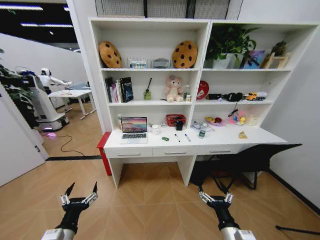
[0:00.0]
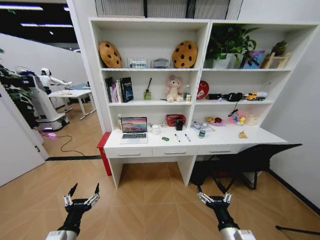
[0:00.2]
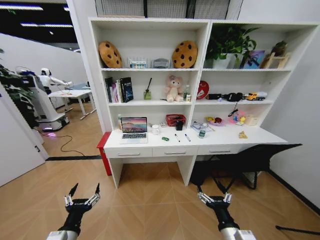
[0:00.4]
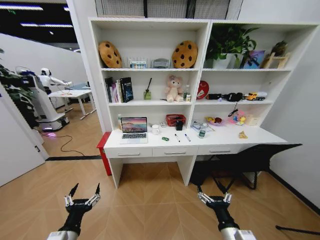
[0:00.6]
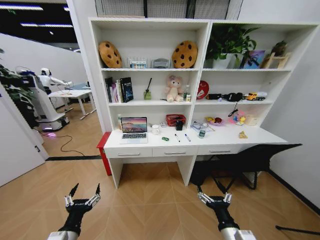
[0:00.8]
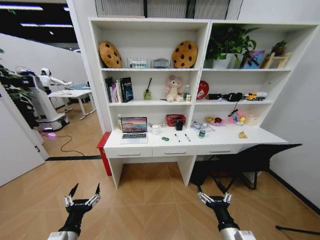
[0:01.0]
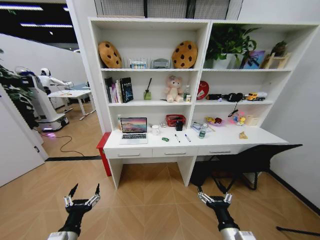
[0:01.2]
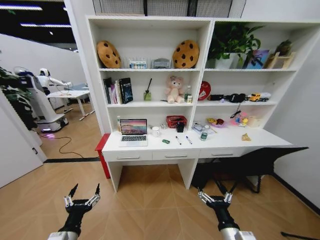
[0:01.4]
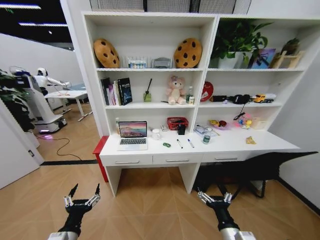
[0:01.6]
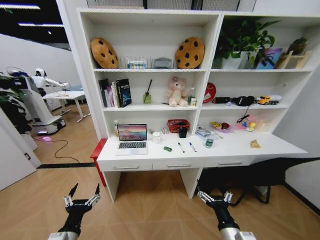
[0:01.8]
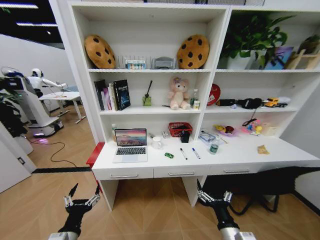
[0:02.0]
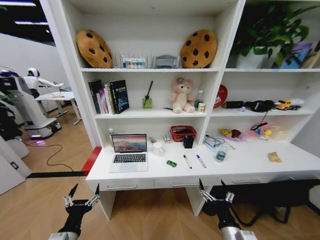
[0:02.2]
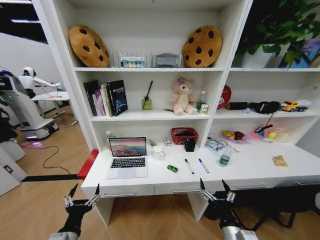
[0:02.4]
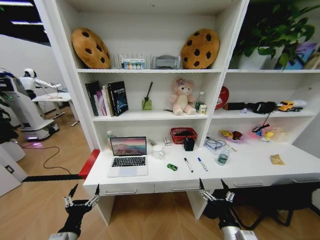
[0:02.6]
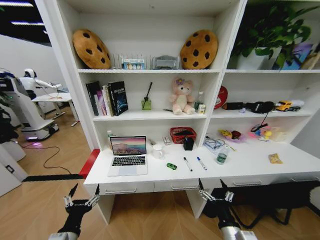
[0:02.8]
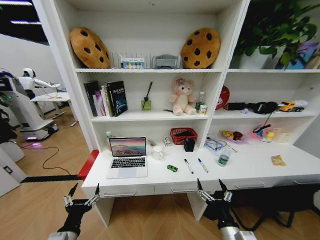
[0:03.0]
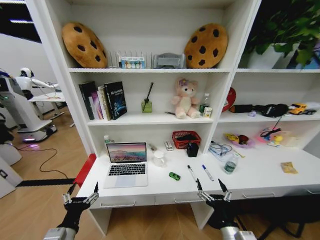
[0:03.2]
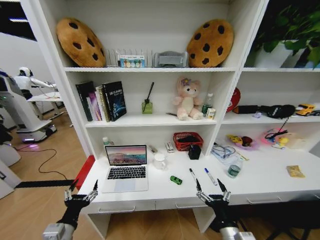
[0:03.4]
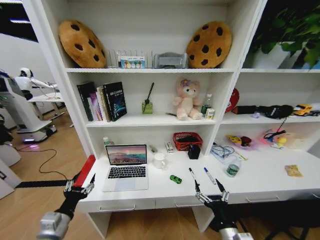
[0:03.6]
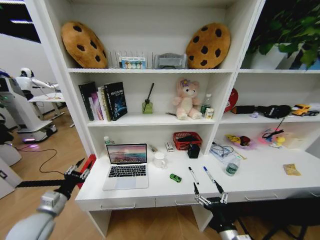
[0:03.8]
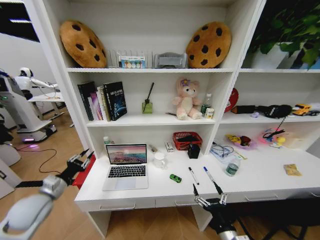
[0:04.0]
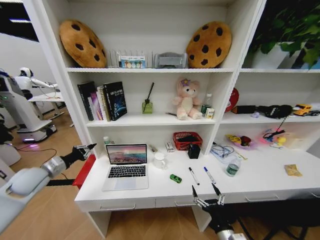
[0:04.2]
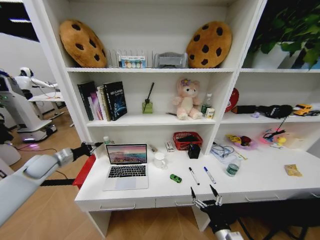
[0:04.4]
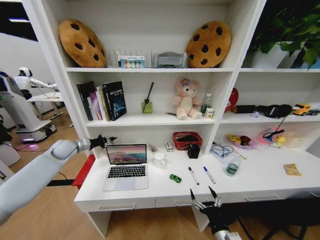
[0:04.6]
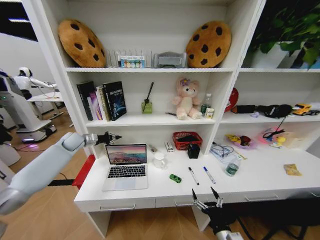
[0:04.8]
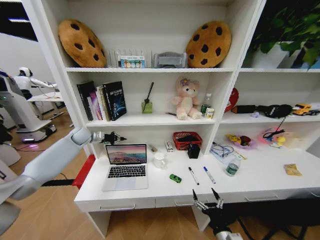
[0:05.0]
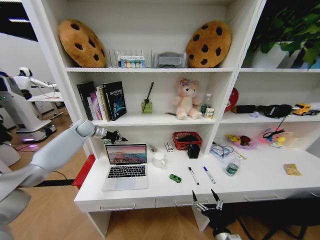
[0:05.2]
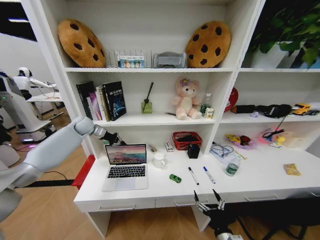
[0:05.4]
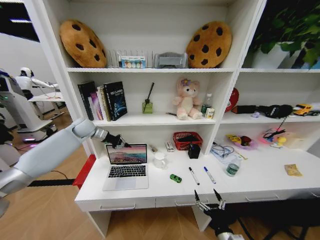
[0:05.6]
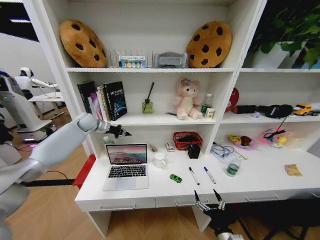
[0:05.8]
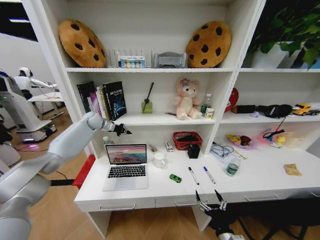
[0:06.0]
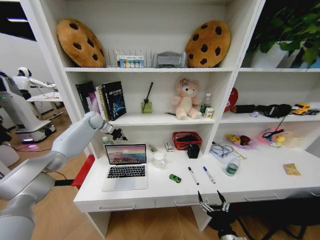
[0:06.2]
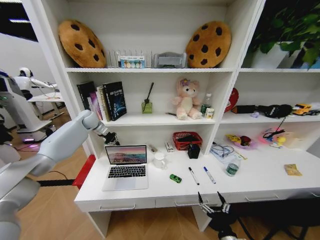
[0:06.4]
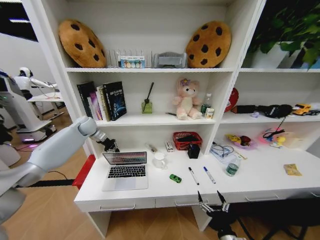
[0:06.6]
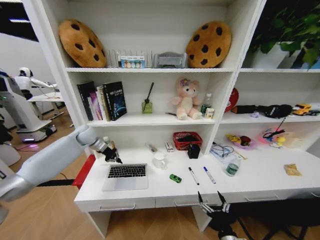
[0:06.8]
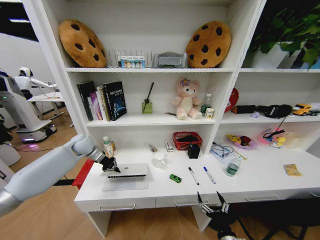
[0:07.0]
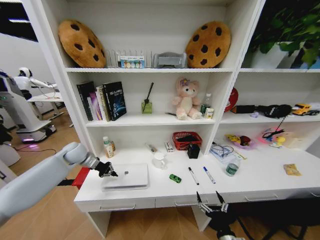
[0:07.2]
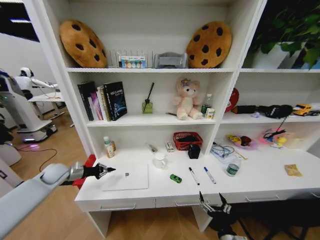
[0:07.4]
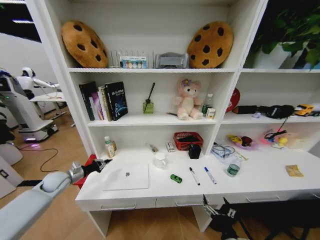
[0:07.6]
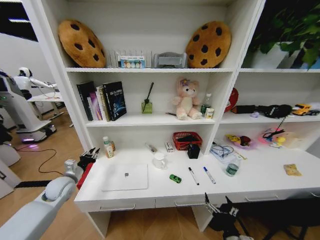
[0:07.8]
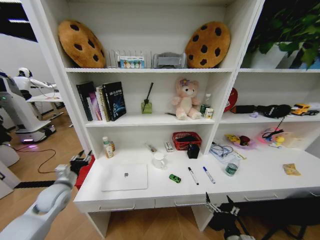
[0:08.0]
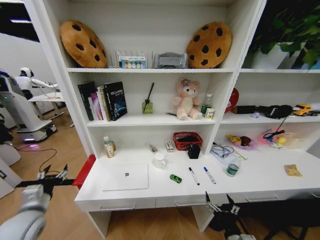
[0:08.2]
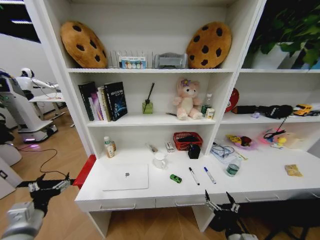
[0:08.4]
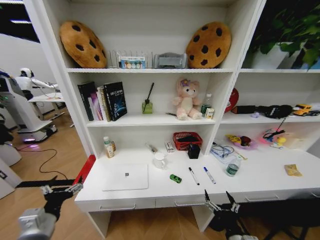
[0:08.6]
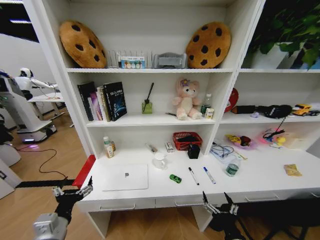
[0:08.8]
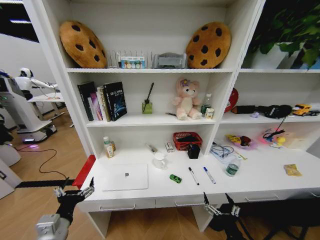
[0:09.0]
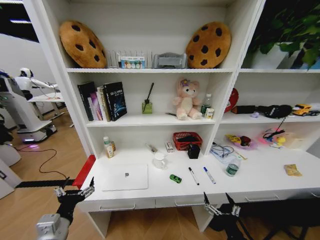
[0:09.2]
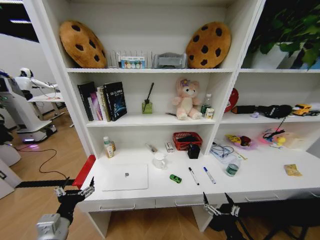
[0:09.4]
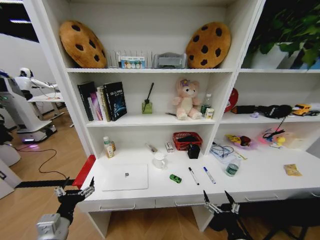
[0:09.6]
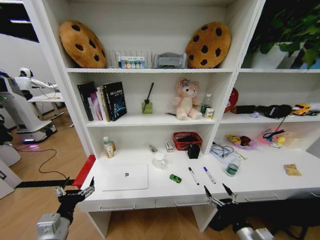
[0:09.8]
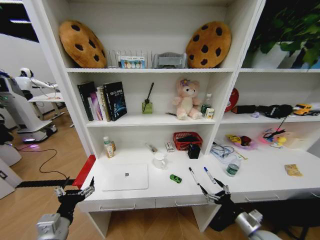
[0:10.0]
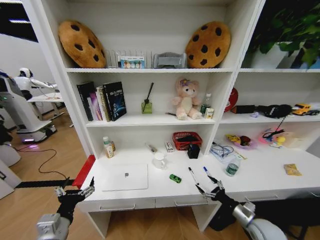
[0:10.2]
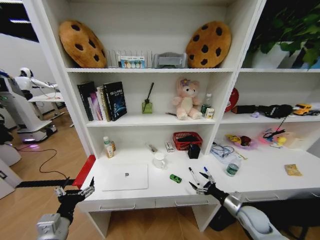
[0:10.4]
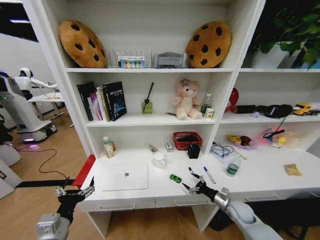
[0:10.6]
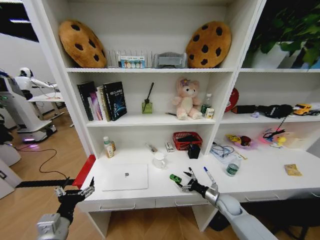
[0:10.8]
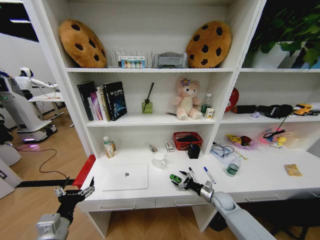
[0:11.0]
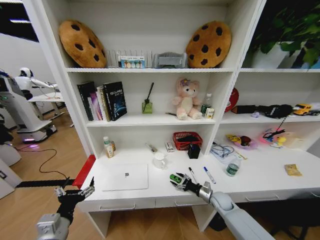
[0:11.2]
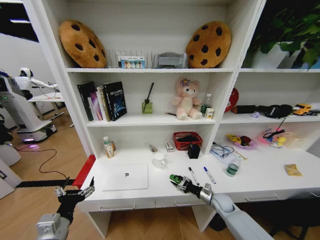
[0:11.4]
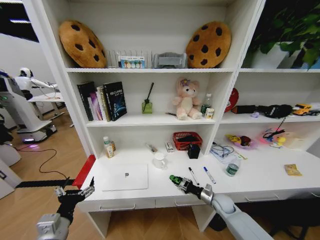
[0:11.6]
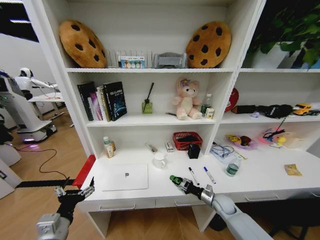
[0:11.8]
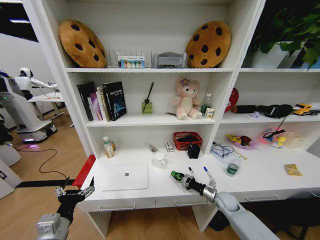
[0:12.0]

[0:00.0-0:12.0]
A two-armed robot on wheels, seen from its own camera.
Task of the whole recording: Organize the objects on the table.
0:03.0 to 0:04.4: The right gripper moves downward, about 5 cm. Meanwhile the left gripper heads forward and to the left, covering about 35 cm, and closes.
0:04.4 to 0:06.0: The left gripper moves forward and backward over about 25 cm, changing direction 2 times.
0:06.0 to 0:07.6: The left gripper heads backward, downward and to the left, covering some 35 cm.
0:07.6 to 0:09.0: The left gripper shifts roughly 30 cm backward and to the right, and opens up.
0:09.0 to 0:10.4: The right gripper travels forward and to the right by about 25 cm.
0:10.4 to 0:12.0: The right gripper heads forward and to the left, covering roughly 10 cm, and closes its fingers.

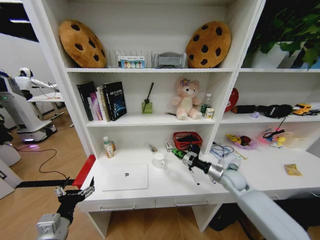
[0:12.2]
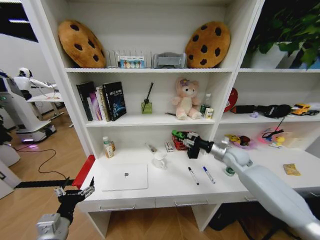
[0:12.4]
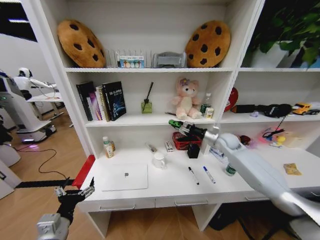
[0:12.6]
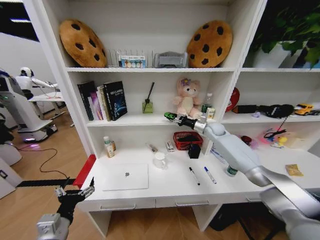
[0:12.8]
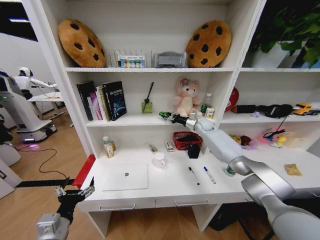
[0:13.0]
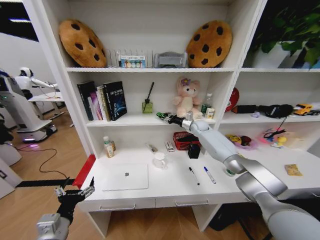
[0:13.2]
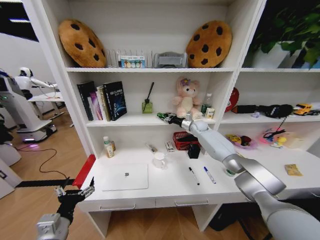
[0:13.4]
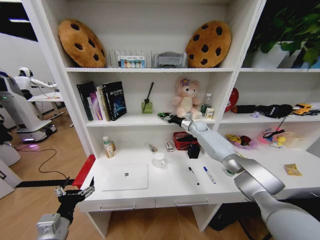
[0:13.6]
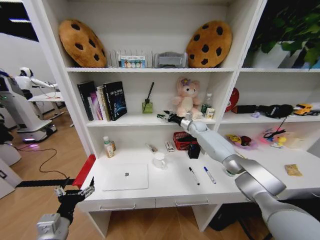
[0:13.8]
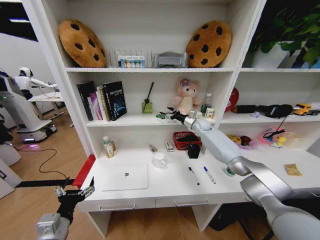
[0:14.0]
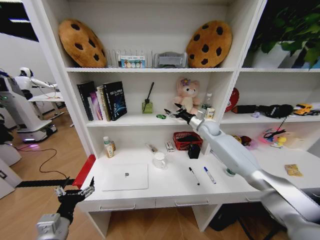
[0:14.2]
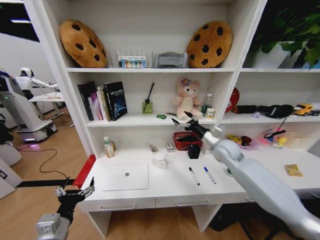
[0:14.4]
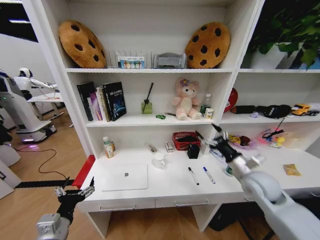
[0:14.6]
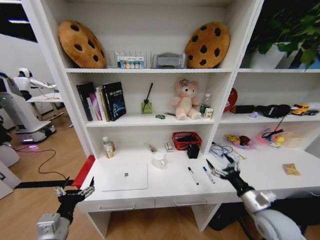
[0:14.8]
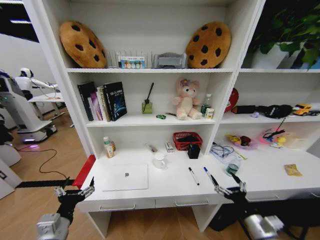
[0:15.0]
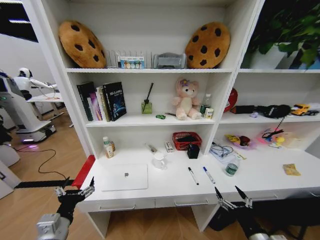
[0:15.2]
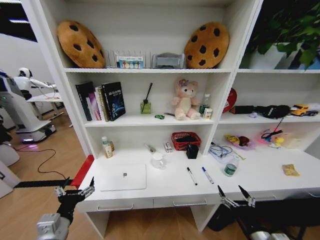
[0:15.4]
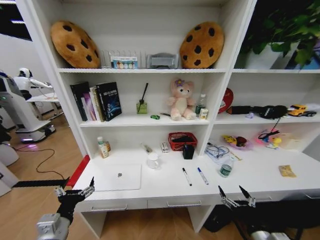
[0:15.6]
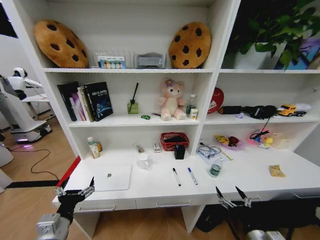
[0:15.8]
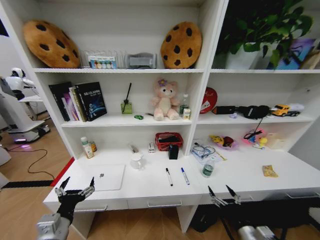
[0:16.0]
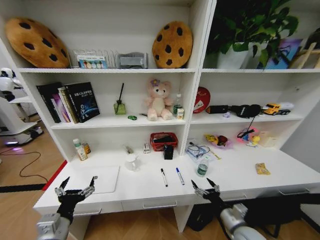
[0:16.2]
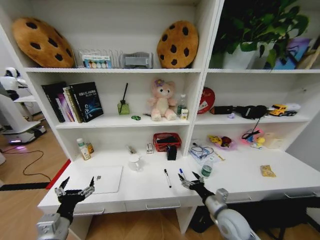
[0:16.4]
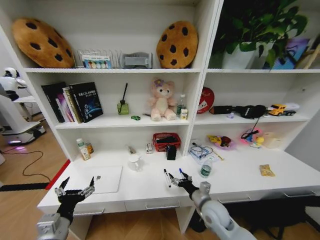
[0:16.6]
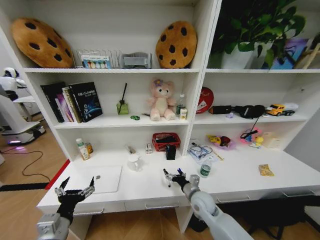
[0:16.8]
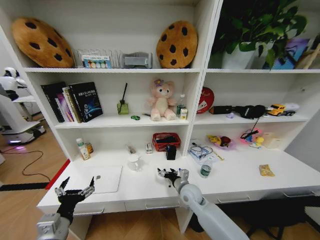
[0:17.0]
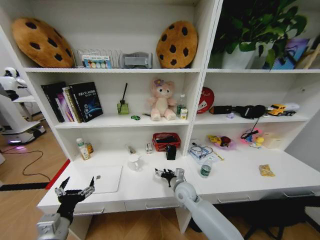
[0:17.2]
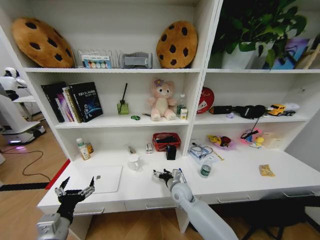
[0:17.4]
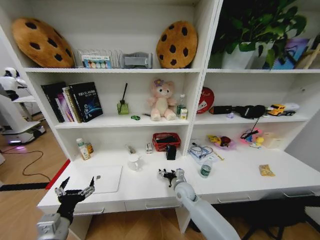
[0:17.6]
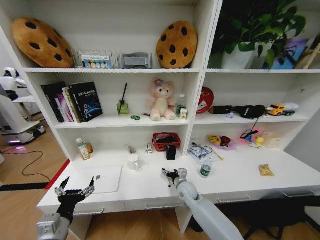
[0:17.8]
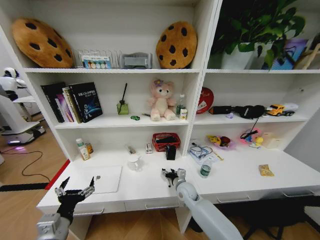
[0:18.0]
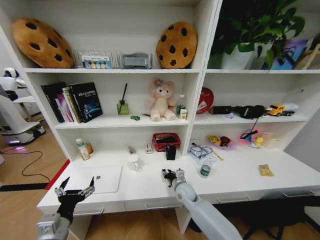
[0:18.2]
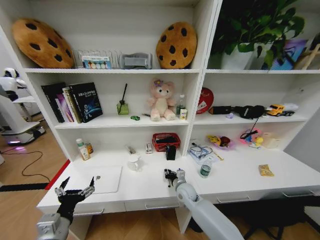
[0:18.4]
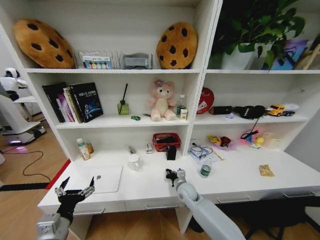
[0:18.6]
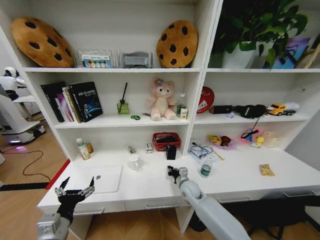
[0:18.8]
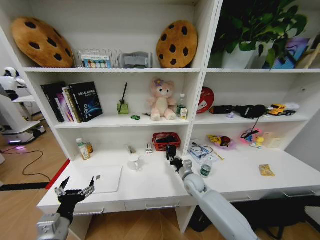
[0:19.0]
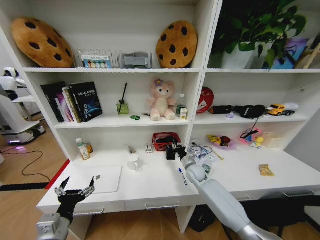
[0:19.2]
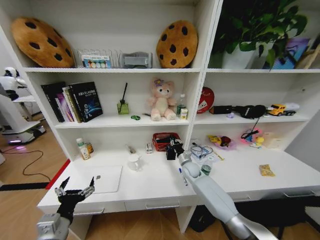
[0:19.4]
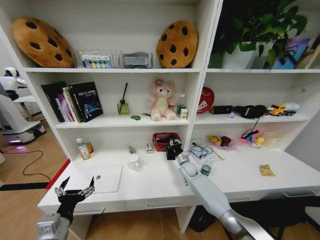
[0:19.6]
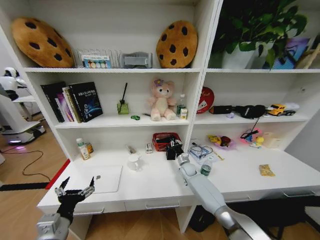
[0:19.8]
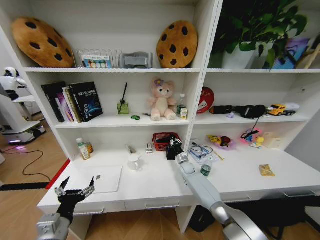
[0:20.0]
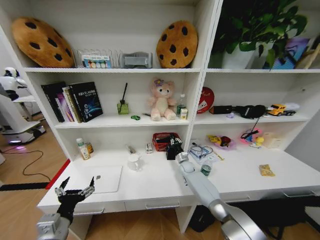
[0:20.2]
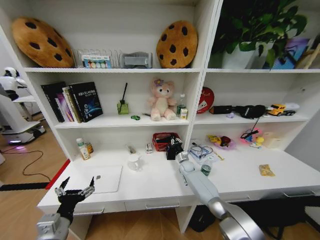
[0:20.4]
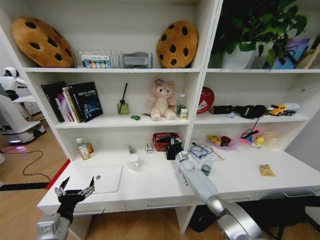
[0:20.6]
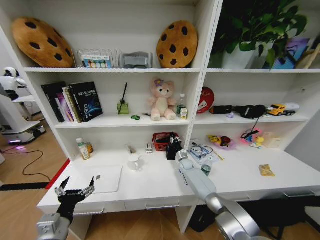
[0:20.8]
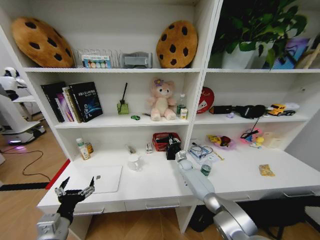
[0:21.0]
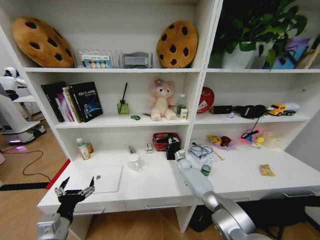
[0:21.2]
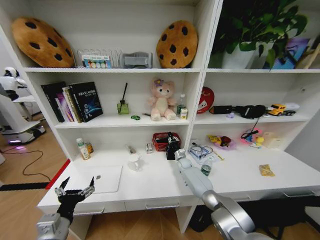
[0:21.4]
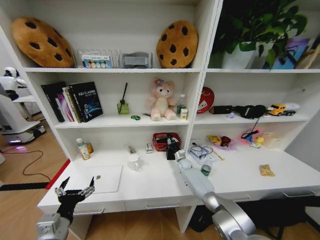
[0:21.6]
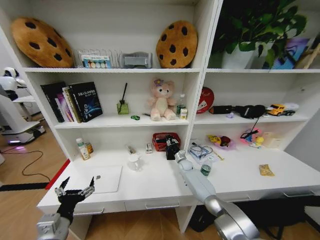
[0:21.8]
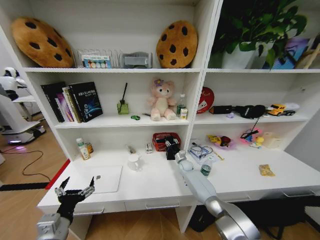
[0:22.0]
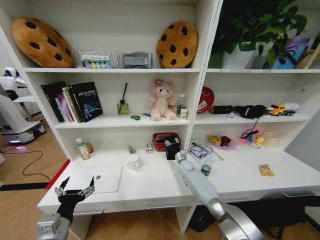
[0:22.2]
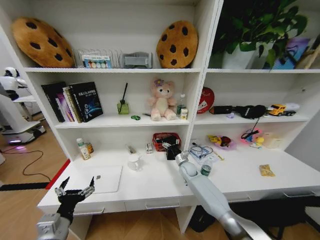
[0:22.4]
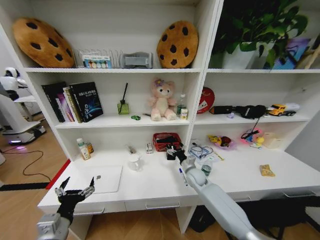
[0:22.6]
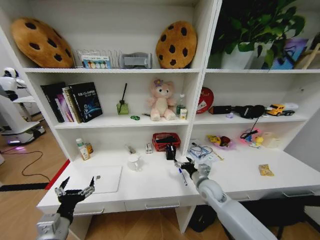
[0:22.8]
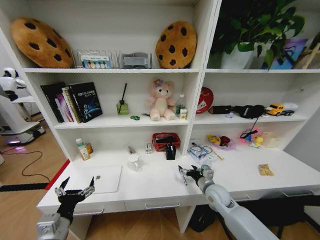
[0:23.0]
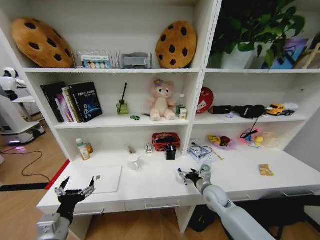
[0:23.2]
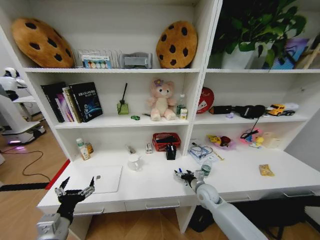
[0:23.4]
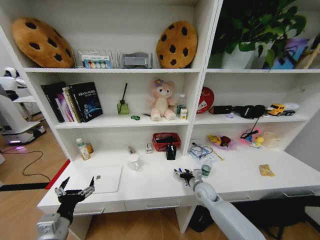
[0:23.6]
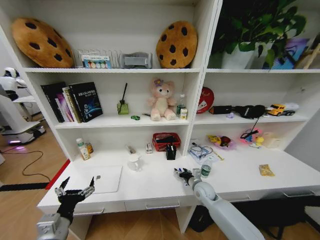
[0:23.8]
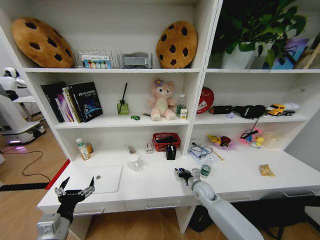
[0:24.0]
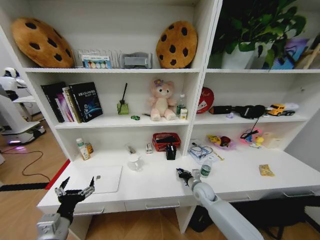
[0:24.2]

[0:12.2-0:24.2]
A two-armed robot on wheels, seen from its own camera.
Task of the whole recording: Organize the objects on the table.
0:12.2 to 0:13.8: The right gripper travels forward and upward by some 30 cm.
0:13.8 to 0:15.2: The right gripper moves backward, approximately 60 cm, and opens up.
0:15.2 to 0:16.6: The right gripper is displaced forward and to the left by approximately 20 cm.
0:16.6 to 0:18.2: The right gripper moves forward, to the left and downward, some 15 cm, and closes up.
0:18.2 to 0:19.8: The right gripper shifts about 15 cm forward and to the right, and closes.
0:19.8 to 0:21.2: The right gripper ends up approximately 5 cm from where it was.
0:21.2 to 0:22.6: The right gripper heads backward and upward, covering some 15 cm, and opens.
0:22.6 to 0:24.2: The right gripper is displaced backward by about 5 cm, and closes its fingers.
